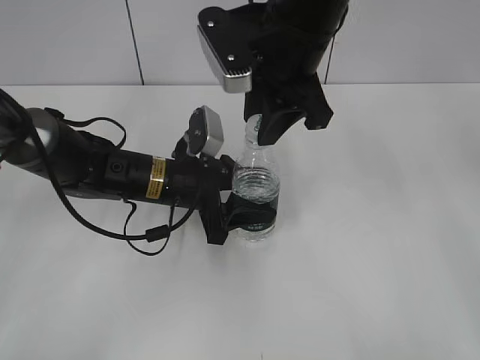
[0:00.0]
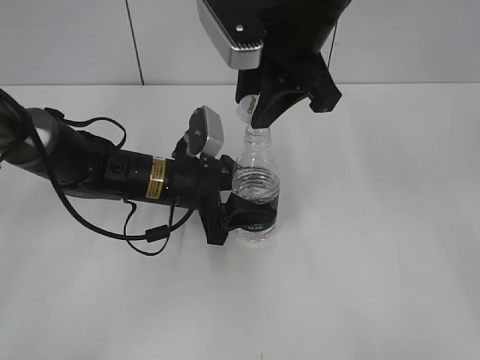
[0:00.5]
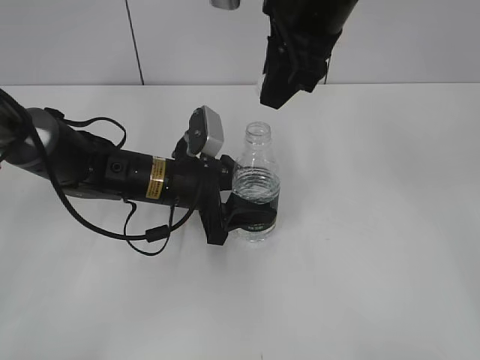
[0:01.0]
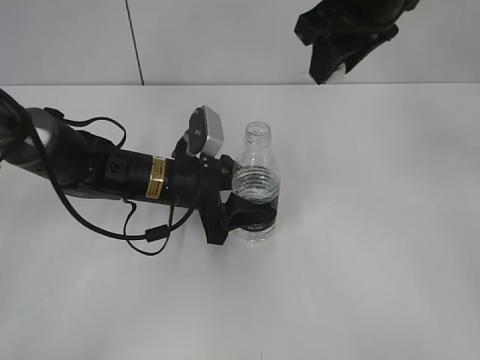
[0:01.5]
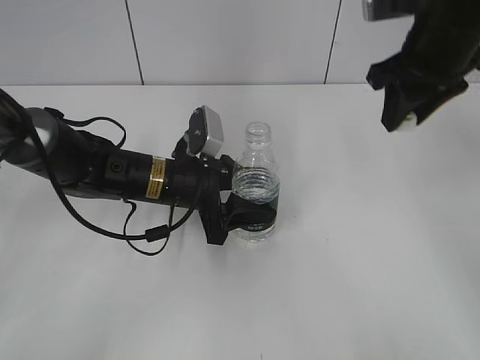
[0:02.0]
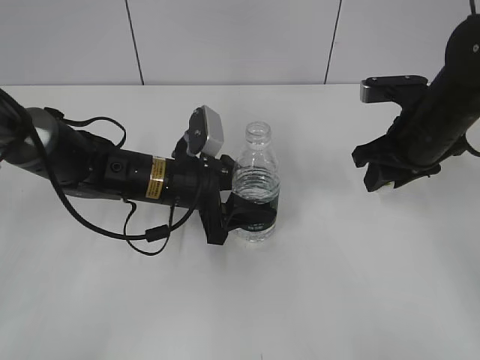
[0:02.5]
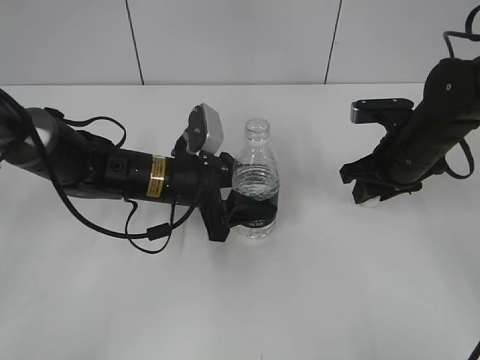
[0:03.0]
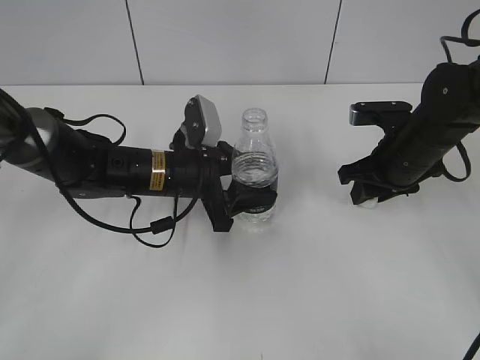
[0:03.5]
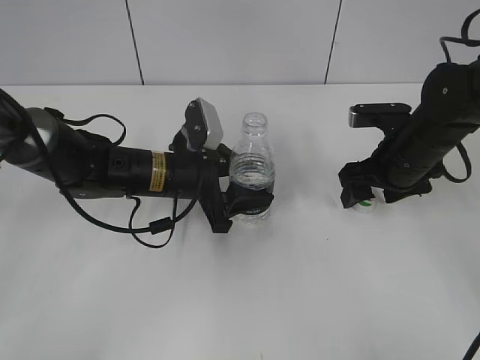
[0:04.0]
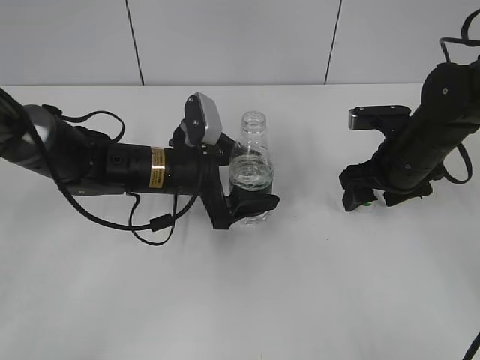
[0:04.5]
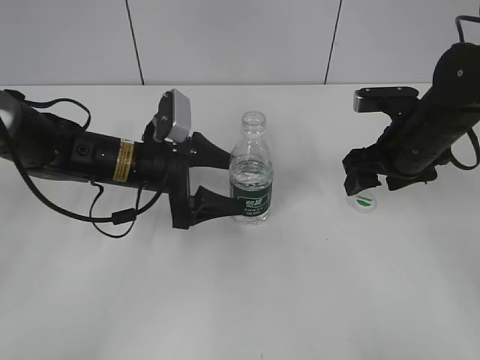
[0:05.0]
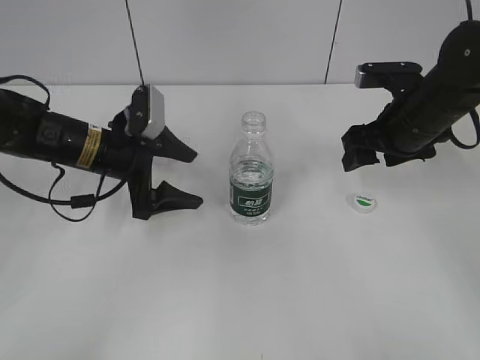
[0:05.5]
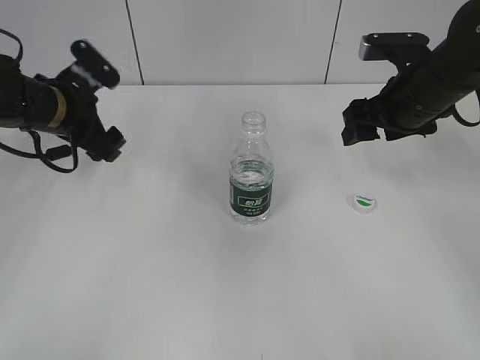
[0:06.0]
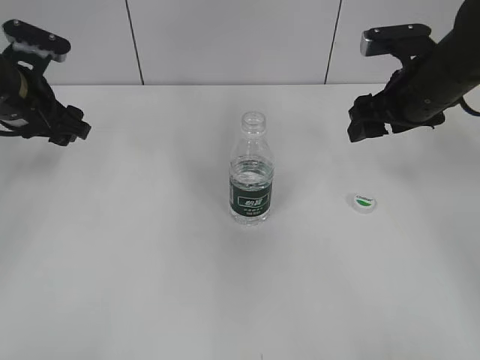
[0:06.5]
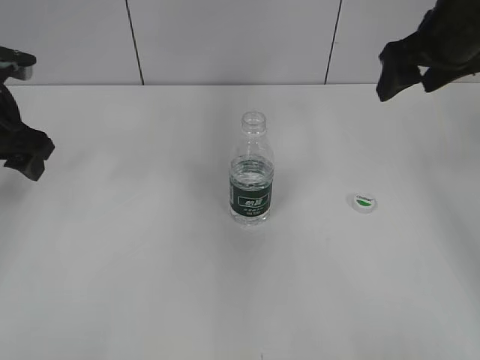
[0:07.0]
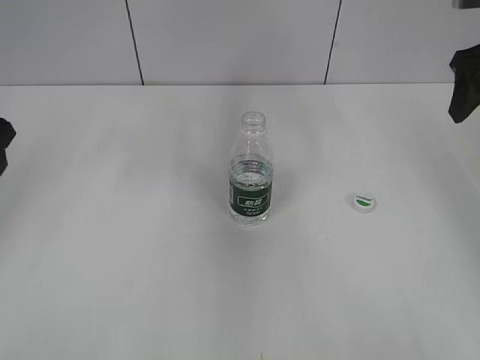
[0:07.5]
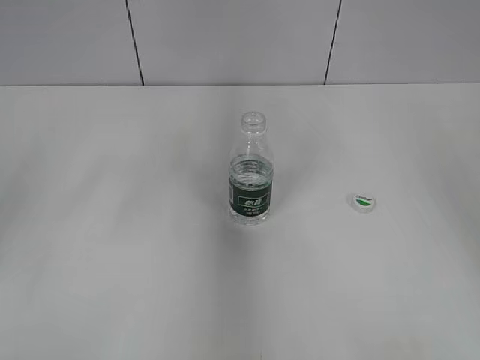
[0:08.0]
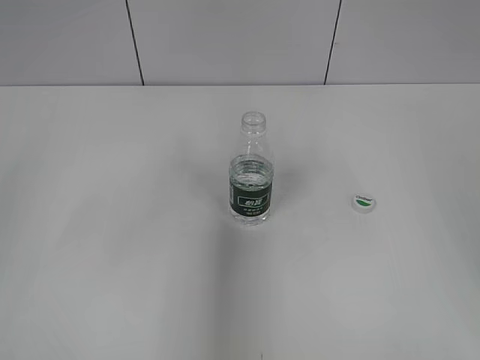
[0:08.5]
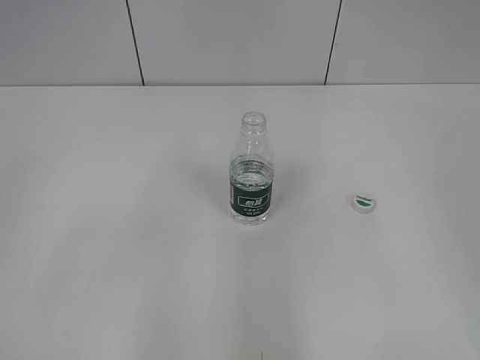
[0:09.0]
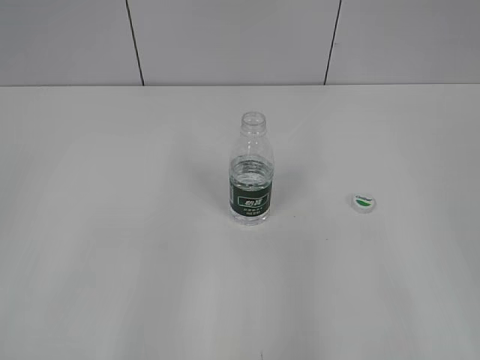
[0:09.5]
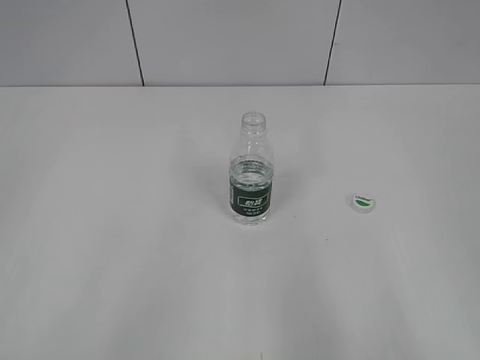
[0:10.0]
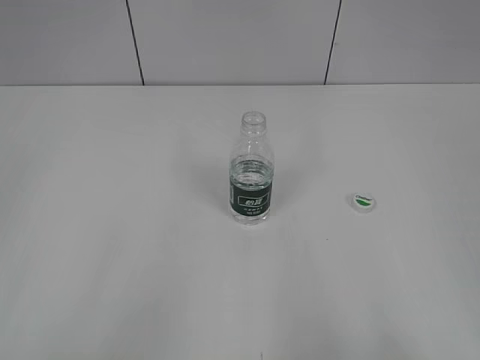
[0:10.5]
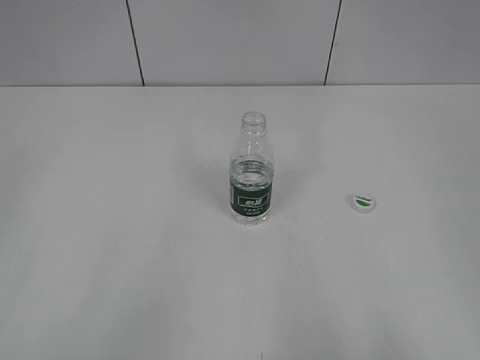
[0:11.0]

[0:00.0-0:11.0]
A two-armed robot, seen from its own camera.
Step, 1.0 to 4.5 s: Place the bottle cap on the table with the right gripper.
0.0 to 2.0 s: The right gripper shifts about 15 cm to the right.
2.0 to 3.5 s: The right gripper goes roughly 15 cm downward.
3.5 to 5.5 s: The right gripper opens up. The left gripper heads to the left, covering approximately 10 cm, and opens.
5.5 to 7.5 s: The right gripper shifts some 15 cm upward and to the right; the left gripper heads upward, to the left and backward, covering approximately 20 cm.
7.5 to 9.0 s: The right gripper moves backward, approximately 25 cm.

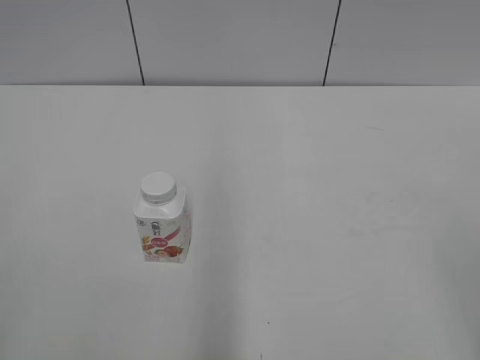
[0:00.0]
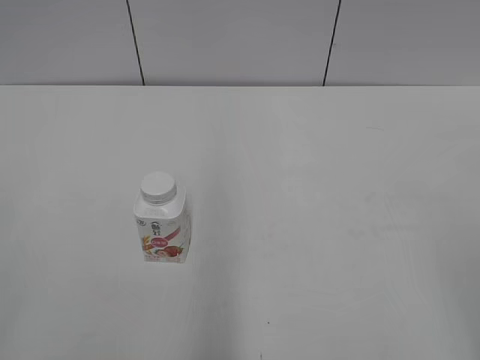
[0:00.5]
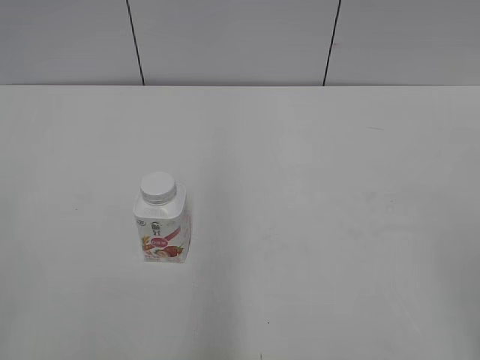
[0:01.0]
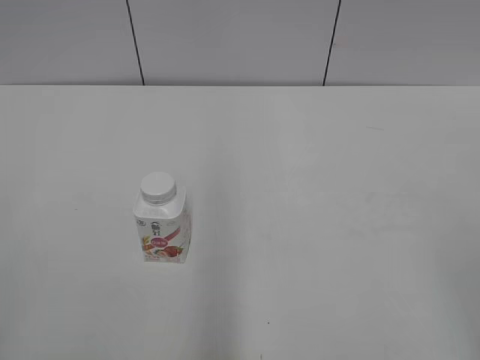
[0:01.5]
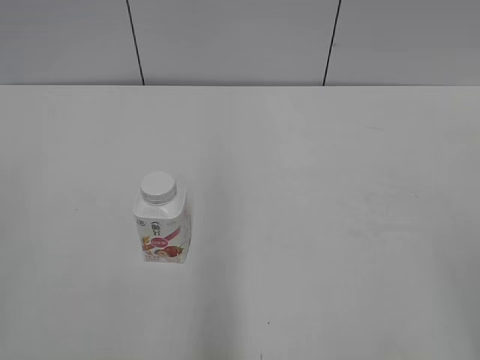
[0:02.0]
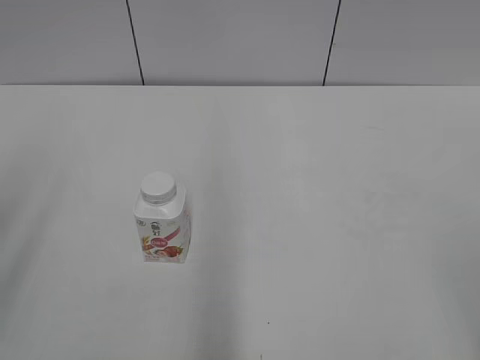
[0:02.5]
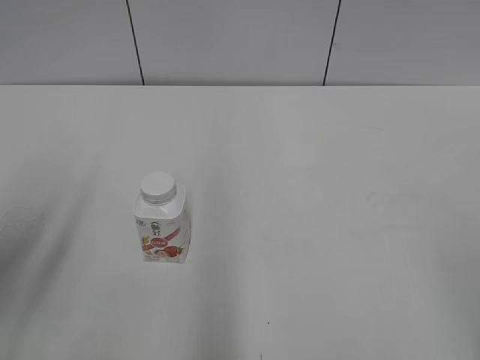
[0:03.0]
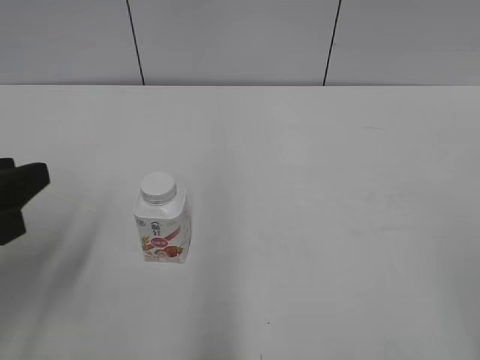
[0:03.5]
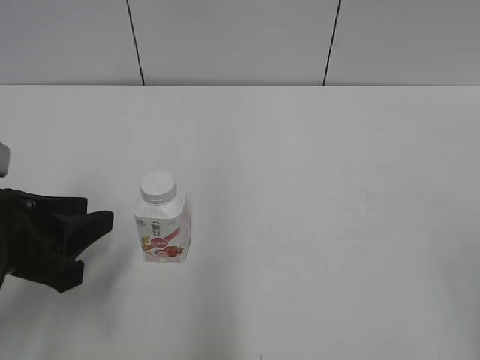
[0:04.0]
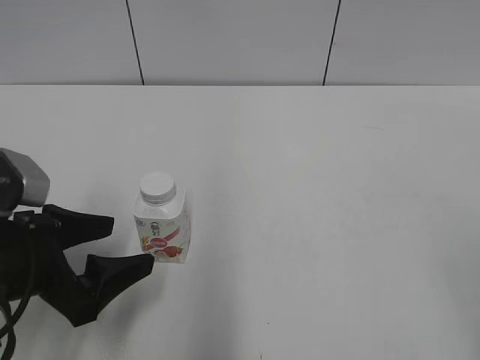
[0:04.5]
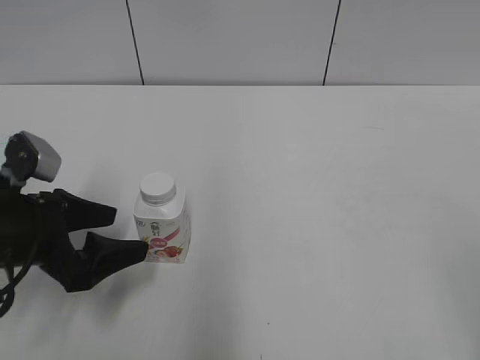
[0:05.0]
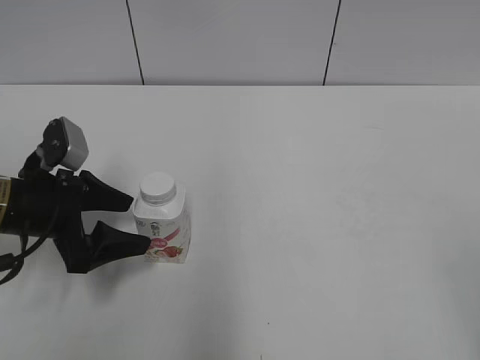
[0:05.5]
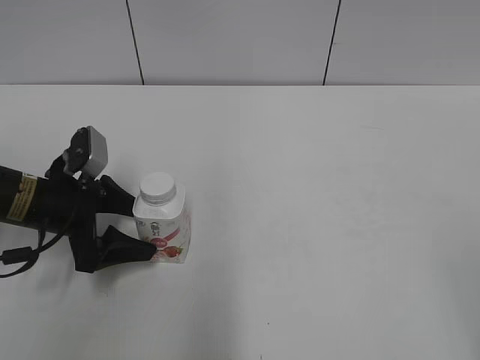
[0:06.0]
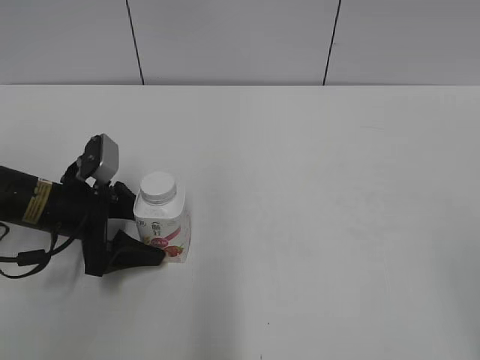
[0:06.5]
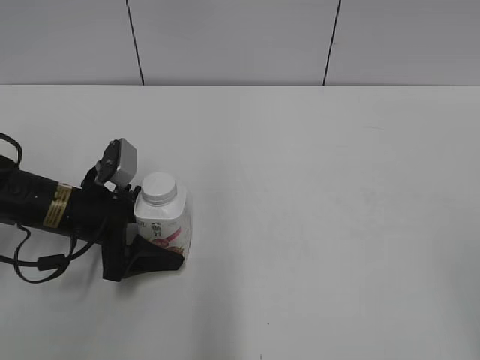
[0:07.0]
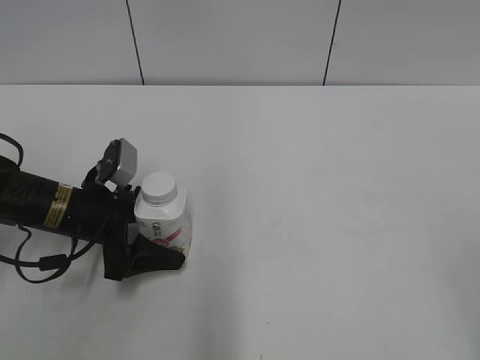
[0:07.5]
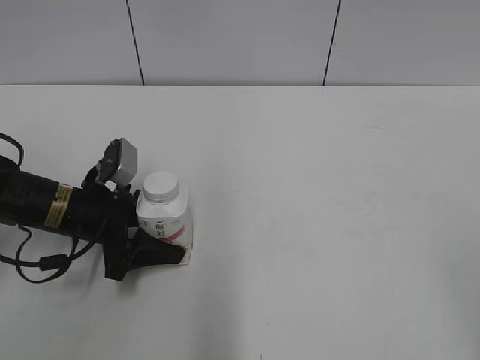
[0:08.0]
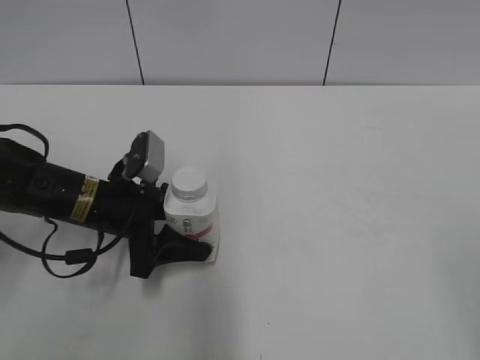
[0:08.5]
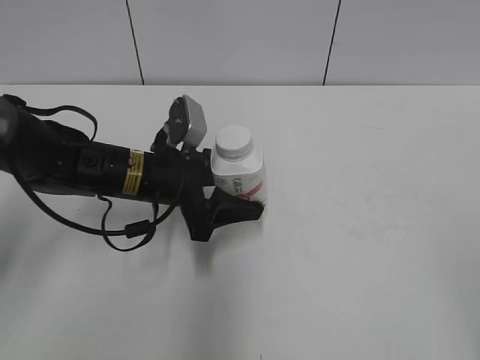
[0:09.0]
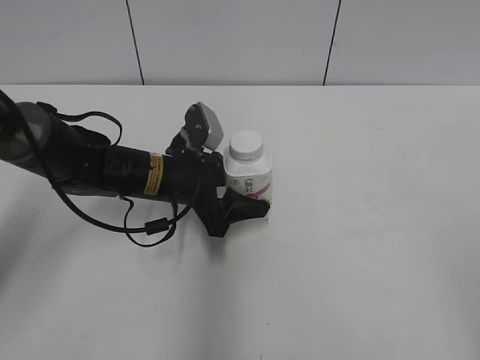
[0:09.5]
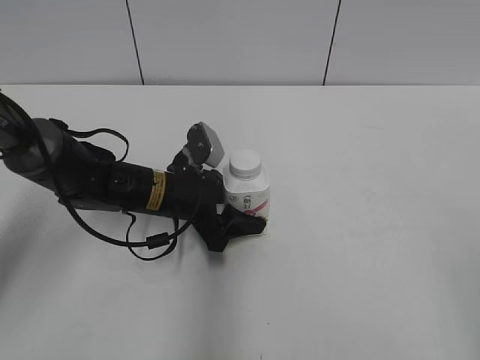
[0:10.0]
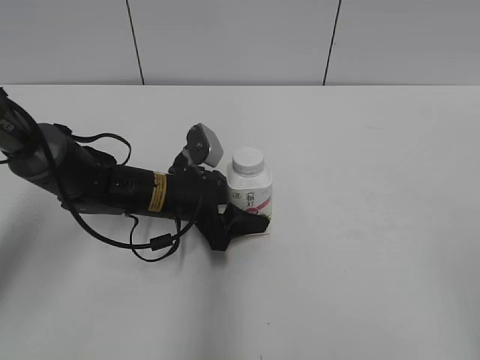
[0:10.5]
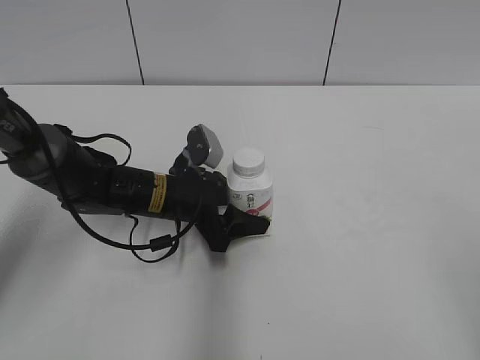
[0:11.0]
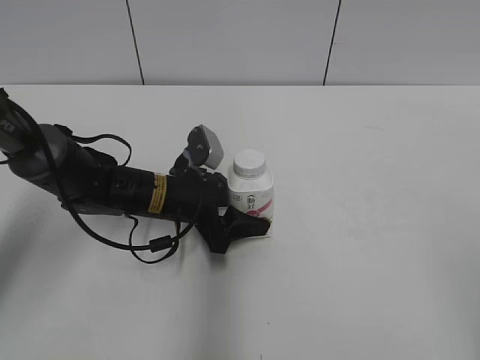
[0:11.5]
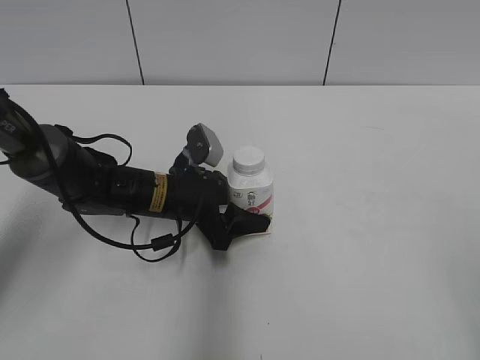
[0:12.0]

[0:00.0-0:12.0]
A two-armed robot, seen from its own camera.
Step, 0.0 to 7.5 s: Grab the Yili Changqing with the left hand.
Step, 8.5 to 11.0 s: Move the Yili Changqing from left to right.
2.0 to 4.0 s: The left gripper goes some 25 cm forward, downward and to the right.
4.0 to 6.0 s: The left gripper travels forward and downward by about 15 cm, and opens its fingers.
6.0 to 8.0 s: The left gripper closes up.
8.0 to 10.0 s: The left gripper travels to the right by approximately 10 cm.
10.0 to 12.0 s: Neither gripper changes place.

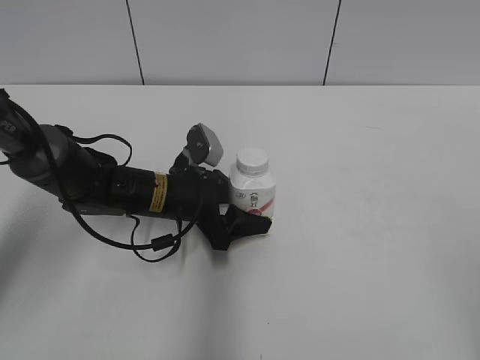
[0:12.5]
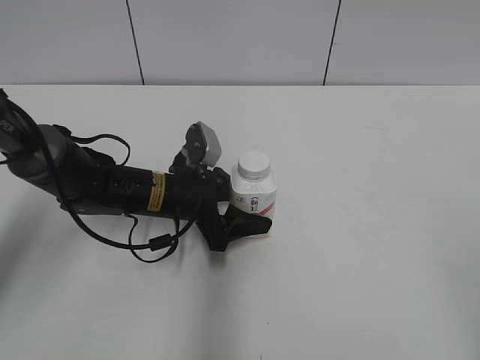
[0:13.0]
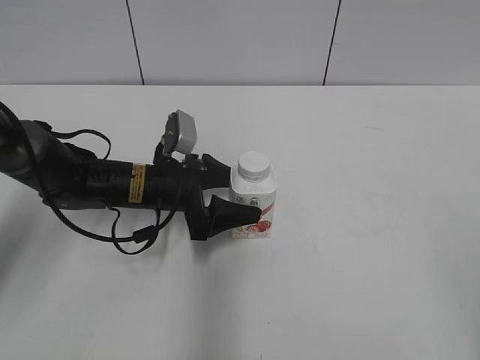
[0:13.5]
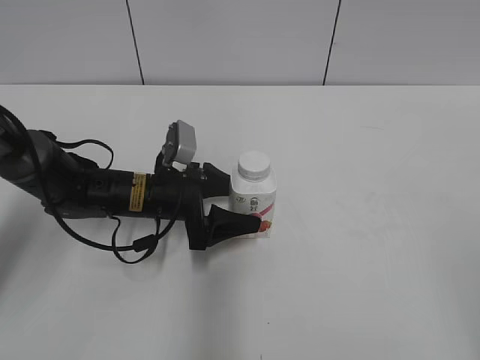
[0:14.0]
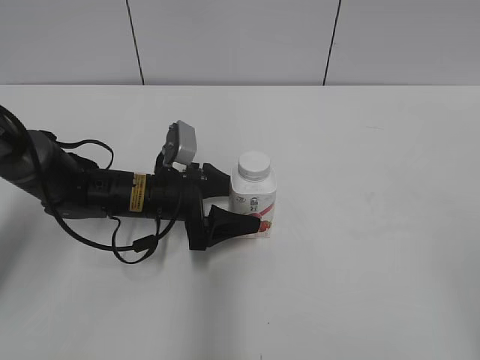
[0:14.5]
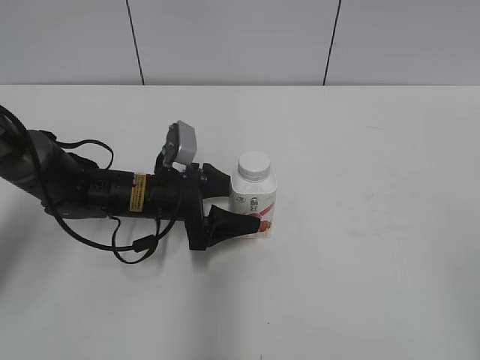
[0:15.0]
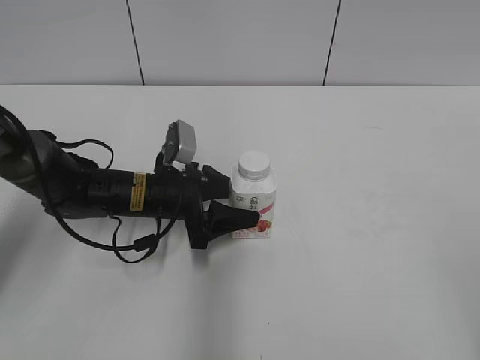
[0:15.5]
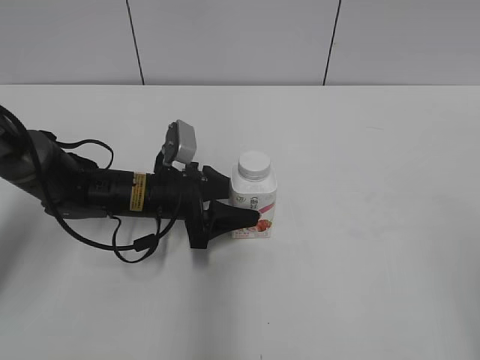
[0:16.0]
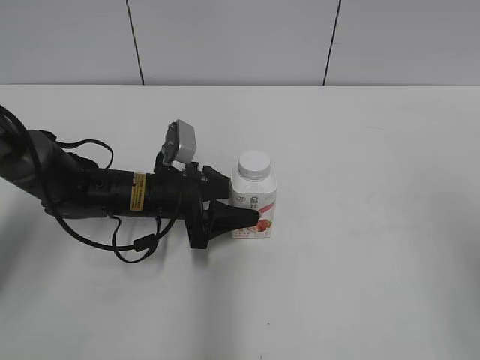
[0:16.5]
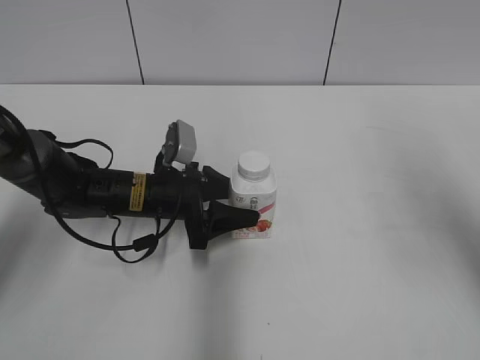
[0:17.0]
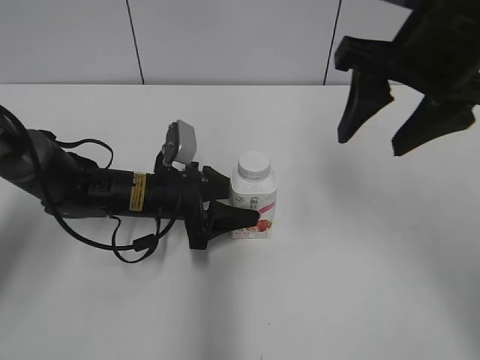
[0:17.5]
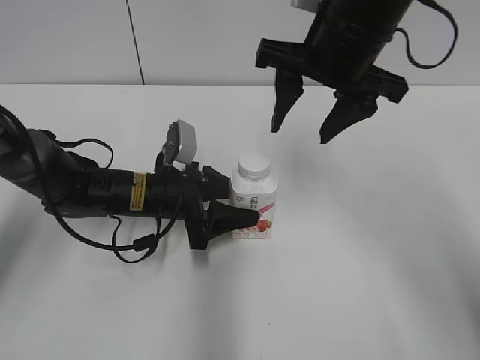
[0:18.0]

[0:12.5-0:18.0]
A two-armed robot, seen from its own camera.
12.5 to 14.5 s: The grippers move only a little.
14.5 to 16.0 s: The left gripper closes its fingers.
16.0 to 18.0 s: The right gripper is displaced forward and to the left by roughly 40 cm.
